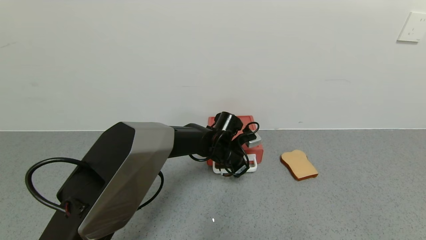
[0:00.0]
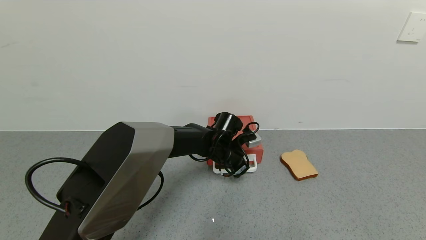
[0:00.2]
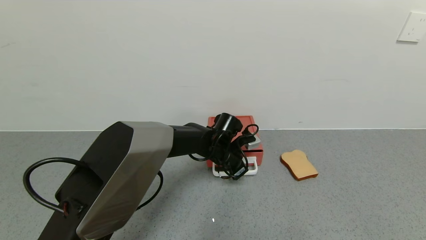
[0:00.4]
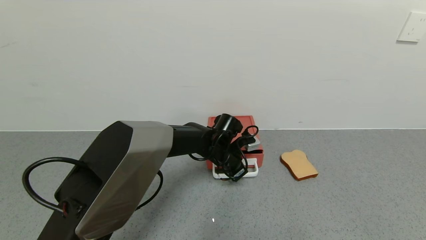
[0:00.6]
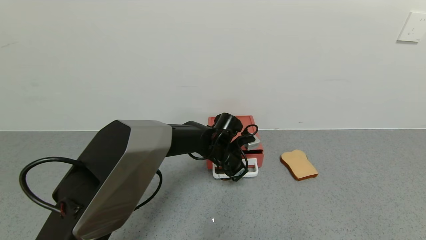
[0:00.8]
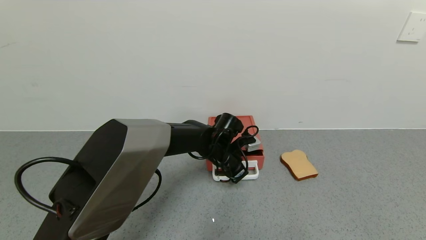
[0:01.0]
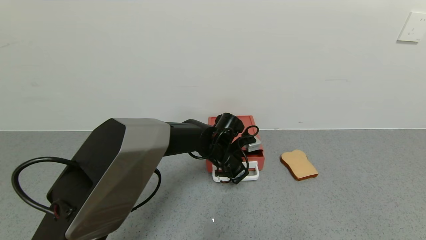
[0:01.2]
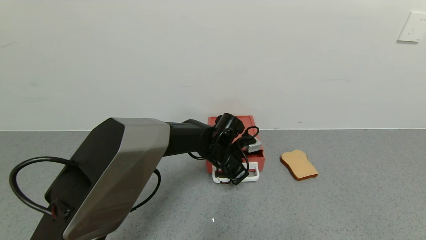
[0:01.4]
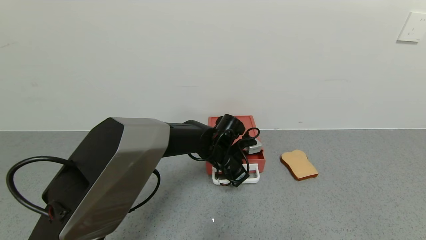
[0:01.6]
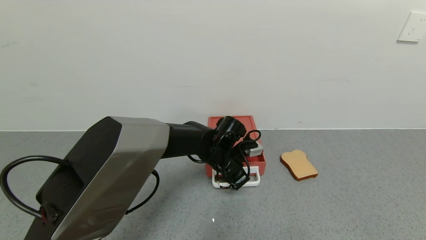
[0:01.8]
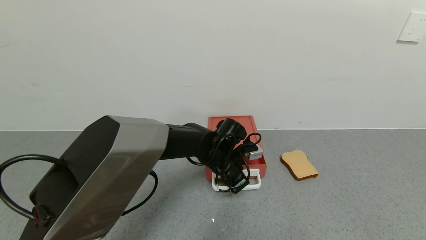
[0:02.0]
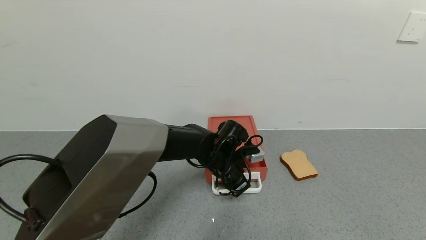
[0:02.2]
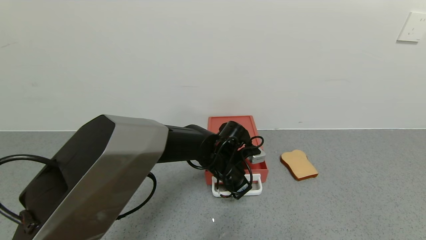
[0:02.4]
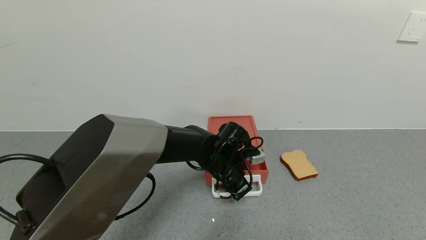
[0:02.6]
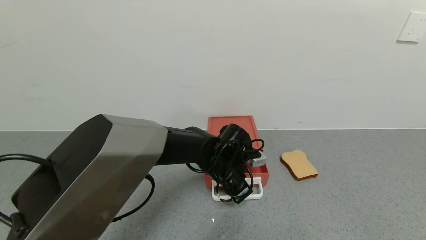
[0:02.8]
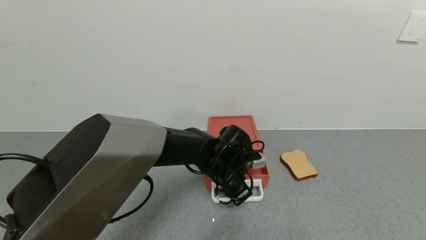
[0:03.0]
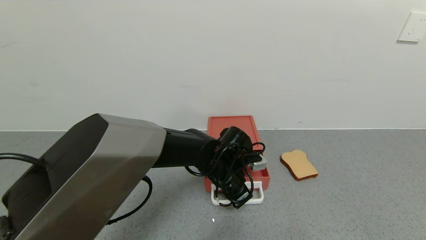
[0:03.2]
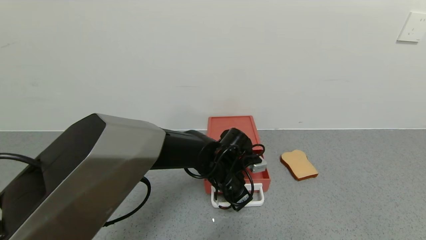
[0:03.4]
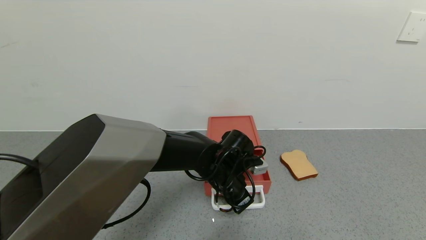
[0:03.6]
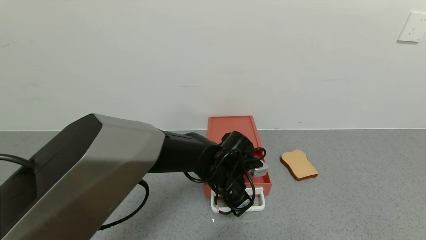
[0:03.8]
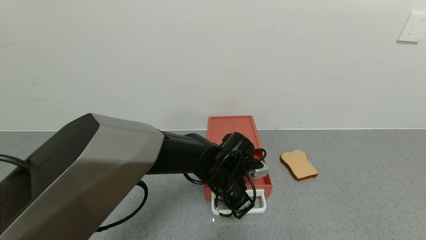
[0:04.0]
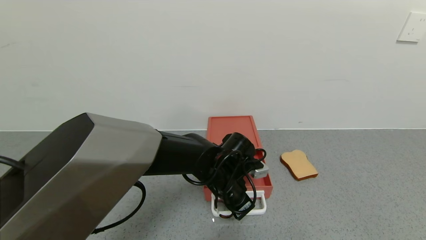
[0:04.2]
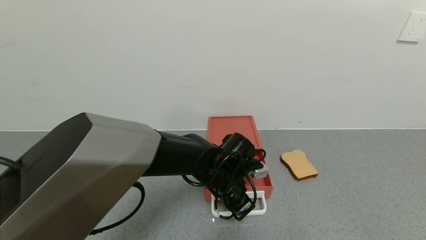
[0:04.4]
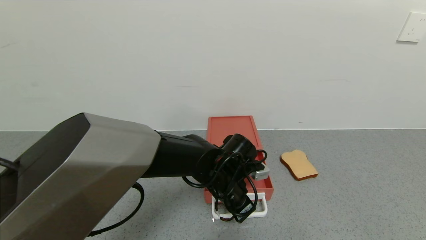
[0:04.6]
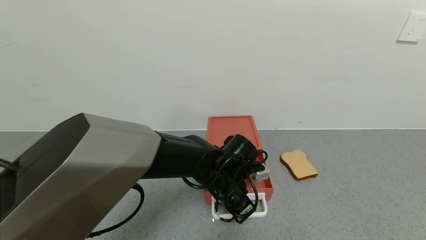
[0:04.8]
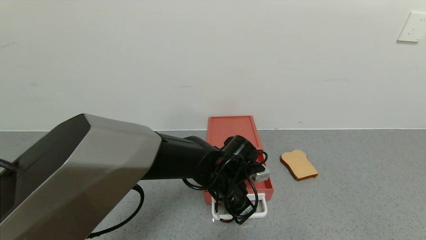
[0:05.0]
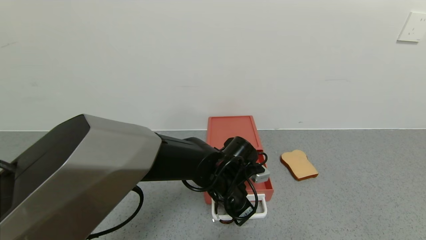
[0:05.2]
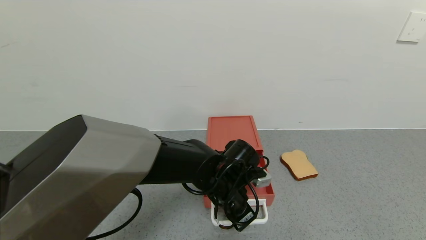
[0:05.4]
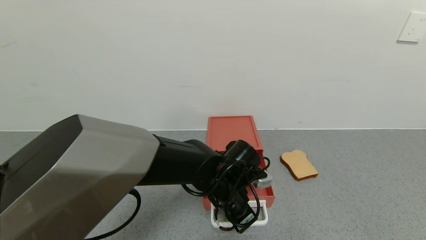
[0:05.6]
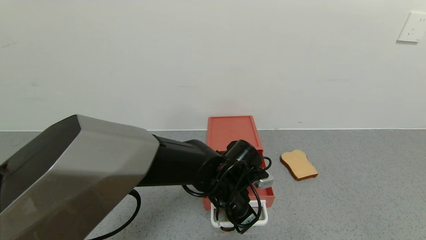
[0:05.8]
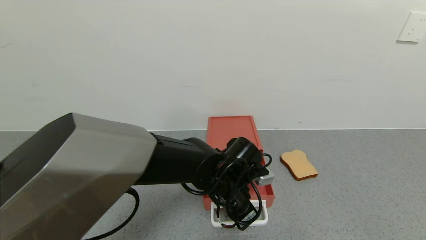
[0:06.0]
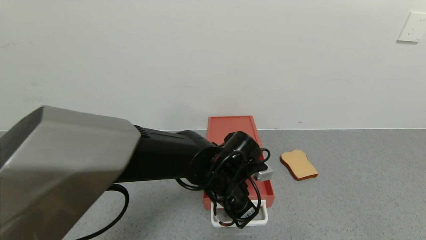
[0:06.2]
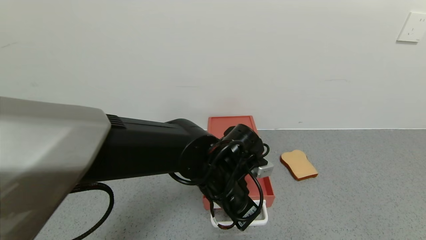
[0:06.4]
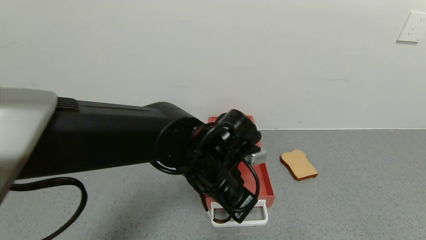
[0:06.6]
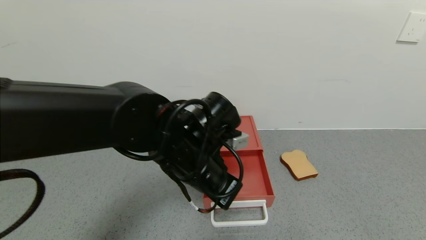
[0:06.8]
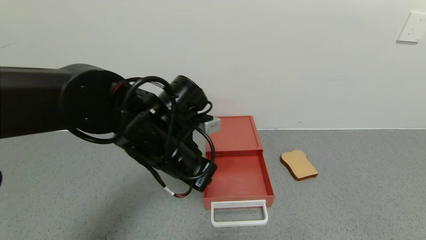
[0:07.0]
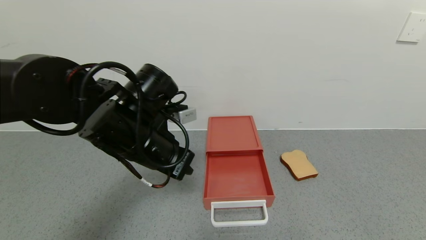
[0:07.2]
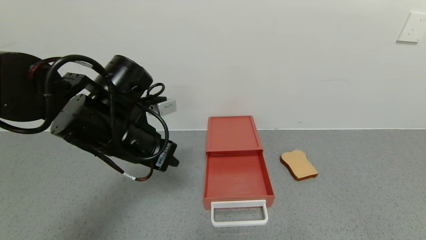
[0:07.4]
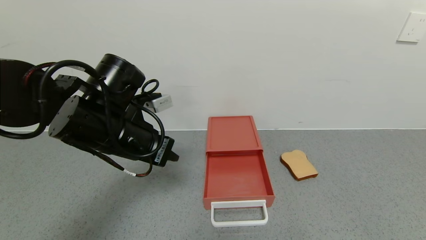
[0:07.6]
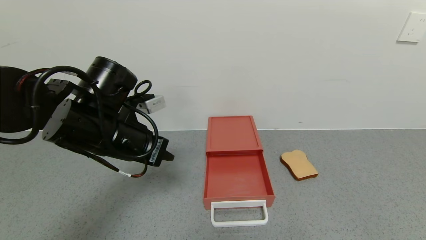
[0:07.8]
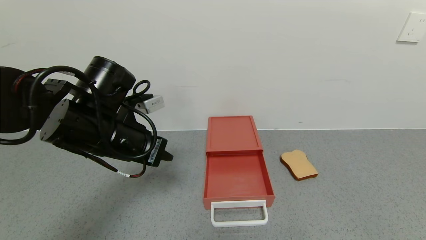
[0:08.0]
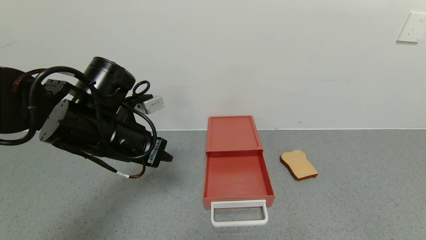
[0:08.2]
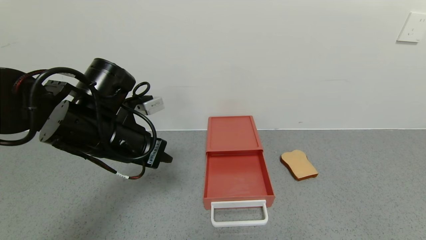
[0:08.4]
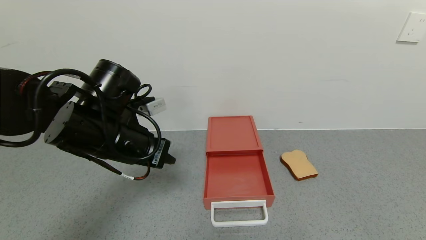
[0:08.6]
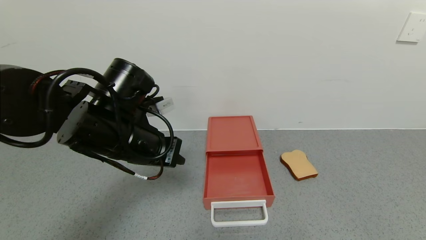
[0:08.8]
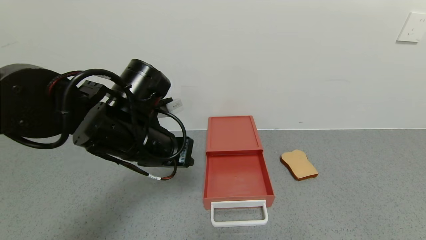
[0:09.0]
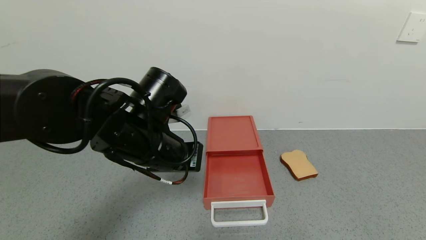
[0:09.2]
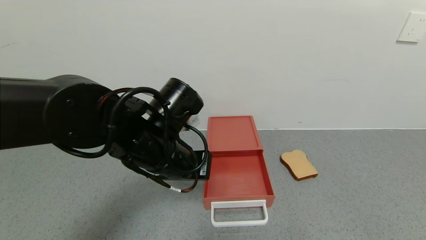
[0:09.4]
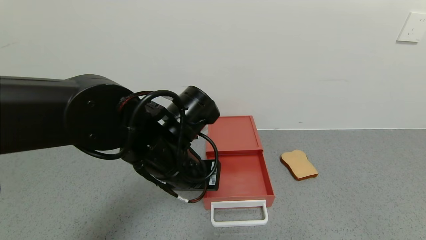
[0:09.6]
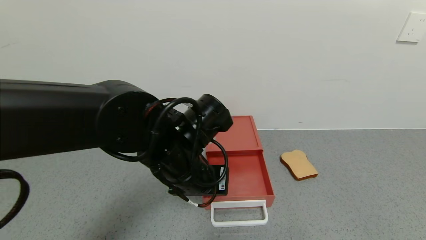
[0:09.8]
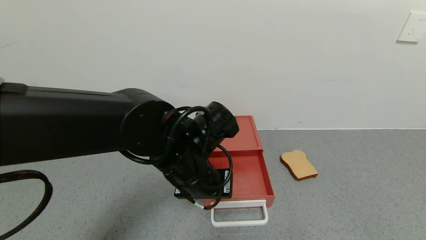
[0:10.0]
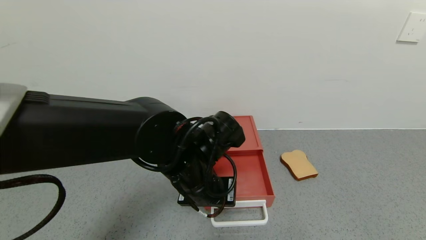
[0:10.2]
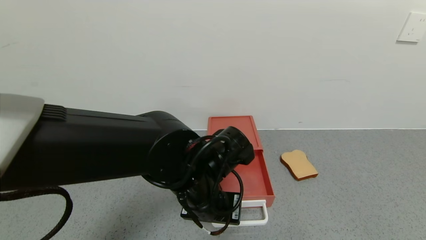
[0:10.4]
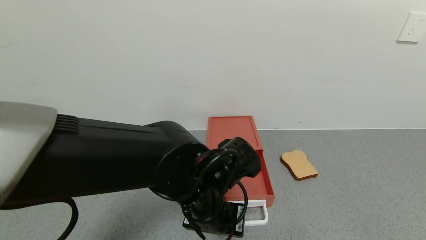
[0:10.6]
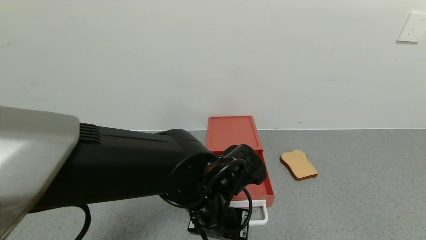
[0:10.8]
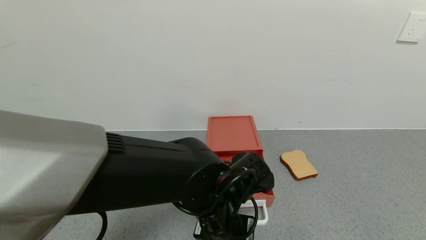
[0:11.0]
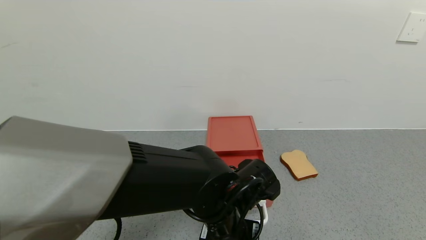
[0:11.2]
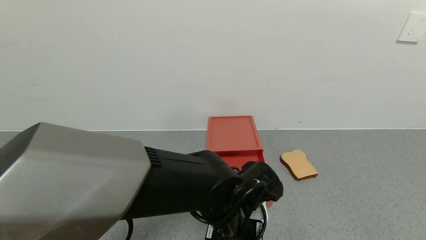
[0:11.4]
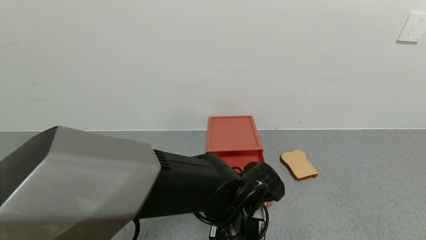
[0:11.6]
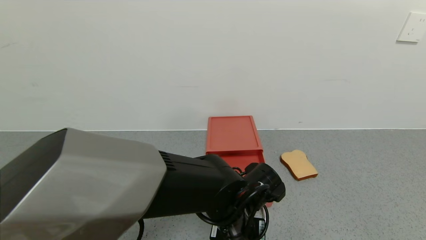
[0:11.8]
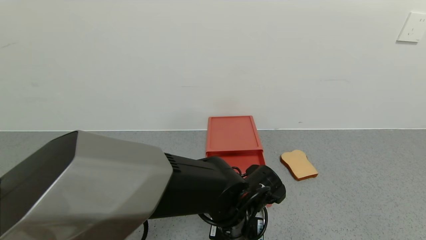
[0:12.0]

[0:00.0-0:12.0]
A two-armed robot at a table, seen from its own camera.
Task of the whole recording: use the gripper to open the drawer and close the red drawer.
Step, 0:00.0 to 0:06.4: Open the red drawer with the left gripper.
0:00.0 to 0:01.6: There are only small adjustments of the grippers.
0:01.6 to 0:03.0: The grippers stay close to where they were, moving slightly.
0:03.0 to 0:06.0: The grippers move only a little.
0:06.0 to 0:07.6: The left gripper goes some 20 cm to the left and upward.
0:07.6 to 0:09.0: The grippers move only a little.
0:09.0 to 0:10.4: The left gripper is displaced to the right and downward by roughly 10 cm.
0:10.4 to 0:12.0: The left gripper is displaced downward and to the right by some 10 cm.

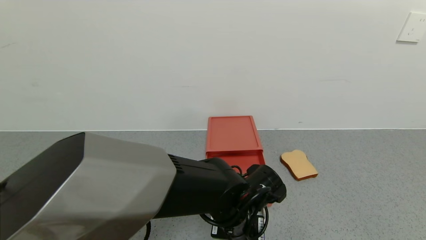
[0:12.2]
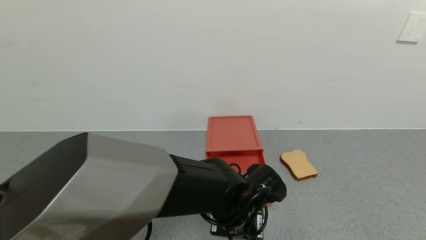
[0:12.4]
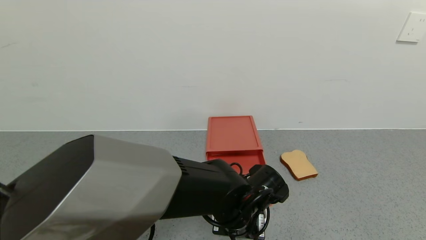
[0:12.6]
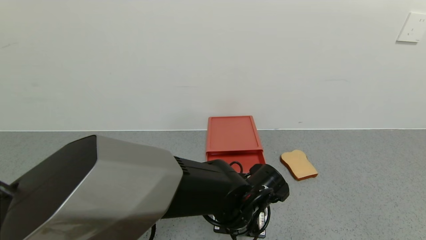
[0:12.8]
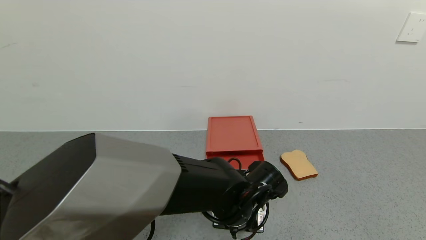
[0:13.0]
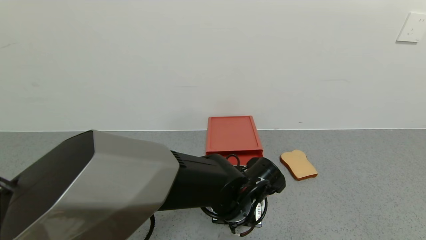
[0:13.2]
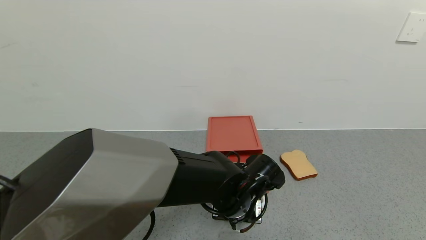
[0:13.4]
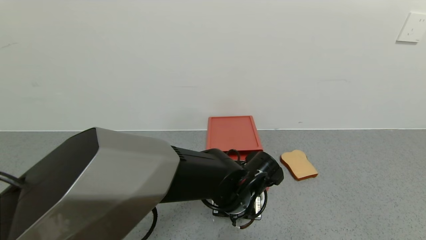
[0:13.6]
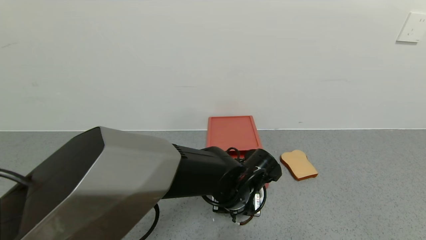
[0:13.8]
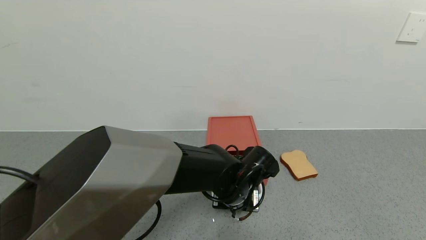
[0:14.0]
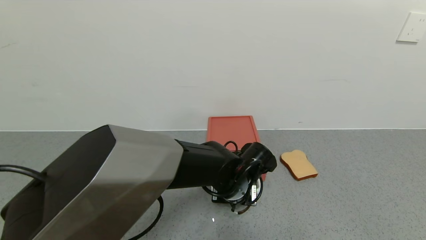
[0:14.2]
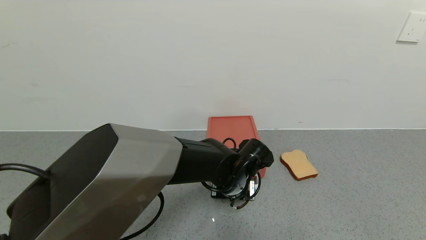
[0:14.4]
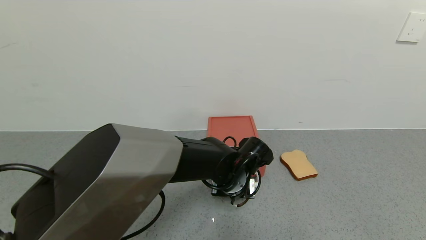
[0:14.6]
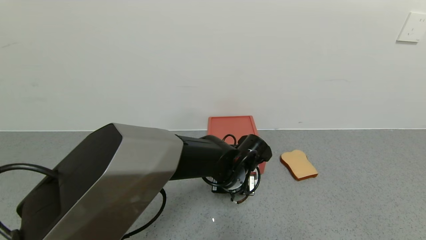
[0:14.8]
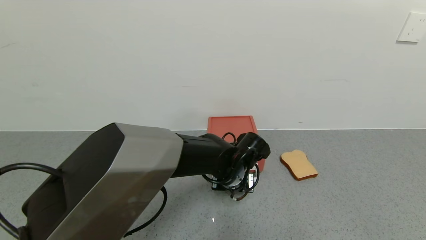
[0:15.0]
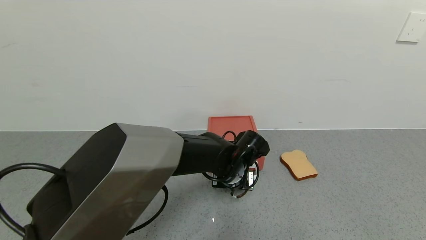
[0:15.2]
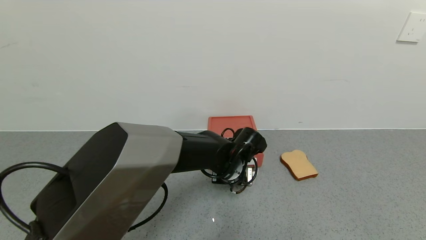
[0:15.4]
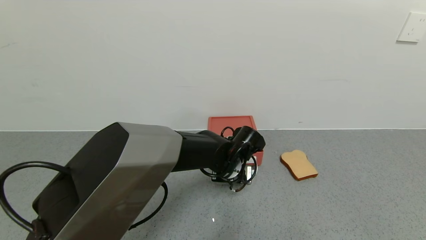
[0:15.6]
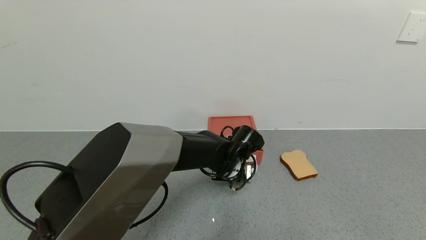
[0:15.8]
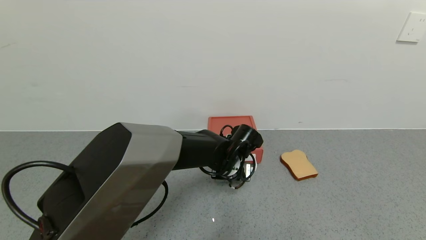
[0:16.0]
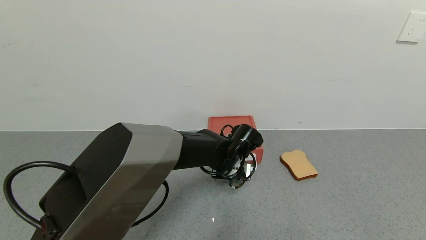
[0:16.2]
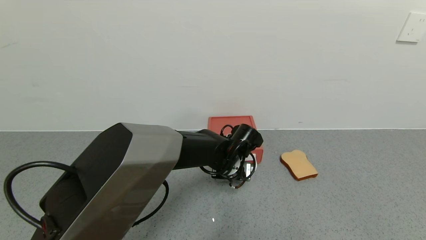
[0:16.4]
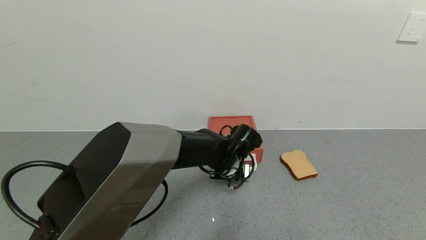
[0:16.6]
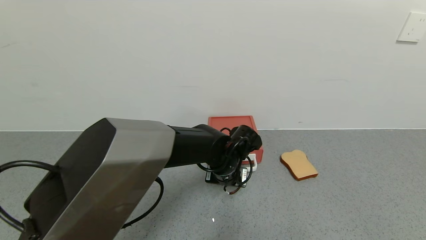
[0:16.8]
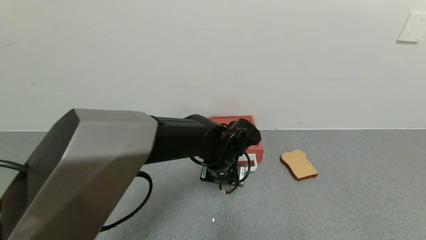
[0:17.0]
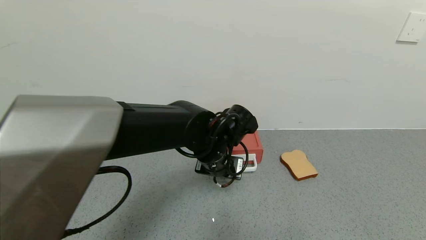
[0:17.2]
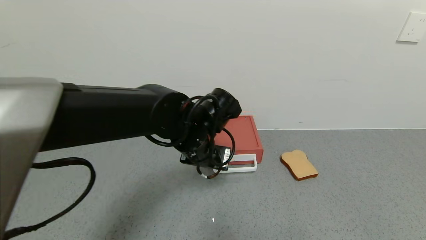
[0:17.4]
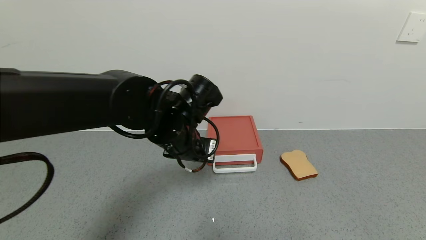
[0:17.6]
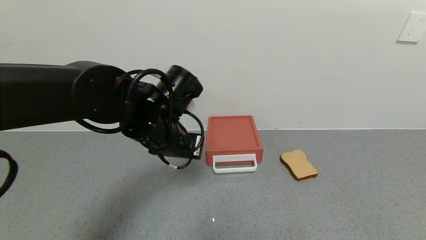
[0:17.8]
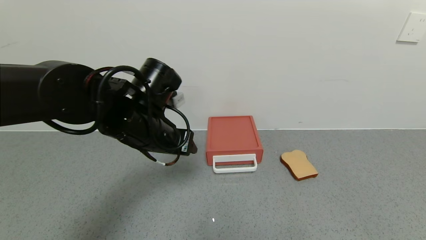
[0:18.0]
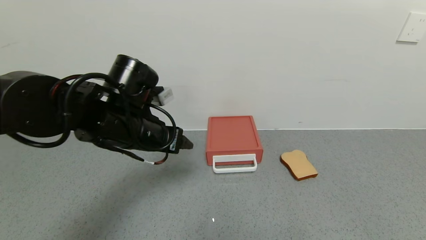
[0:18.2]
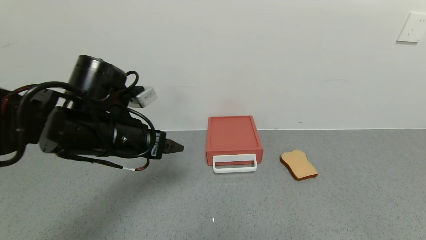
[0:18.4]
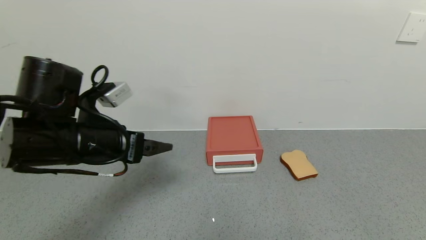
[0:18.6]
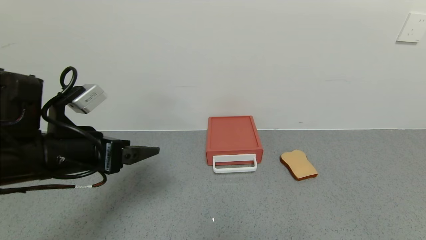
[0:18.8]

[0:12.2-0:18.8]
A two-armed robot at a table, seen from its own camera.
Task of the whole recording: use the gripper to open the drawer and close the red drawer.
Step, 0:12.2 to 0:17.2: Close the red drawer with the left gripper.
0:12.2 to 0:13.8: The grippers stay close to where they were, moving slightly.
0:13.8 to 0:15.4: The left gripper moves forward, about 5 cm.
0:15.4 to 0:17.2: The left gripper travels upward by about 5 cm.
0:17.2 to 0:18.8: The left gripper moves to the left and backward, approximately 25 cm, and opens.
